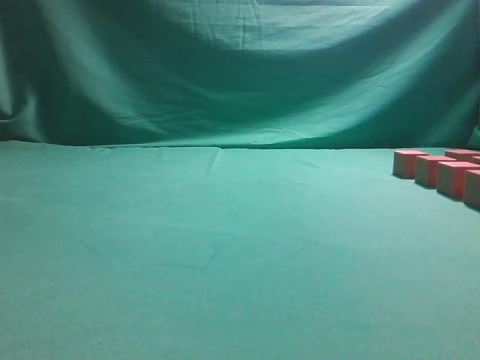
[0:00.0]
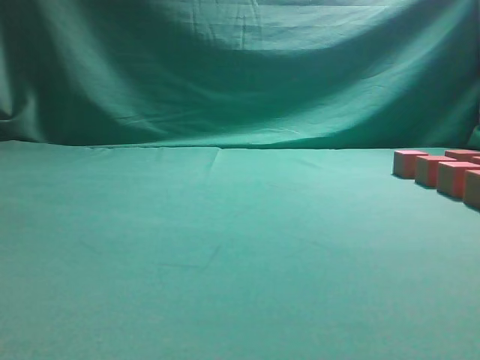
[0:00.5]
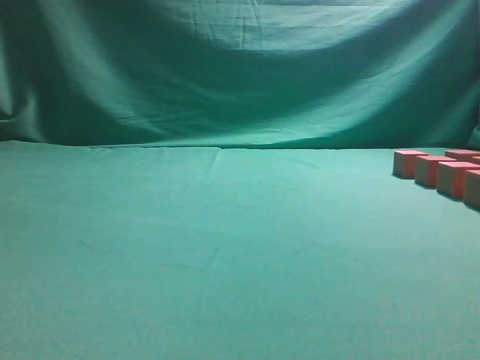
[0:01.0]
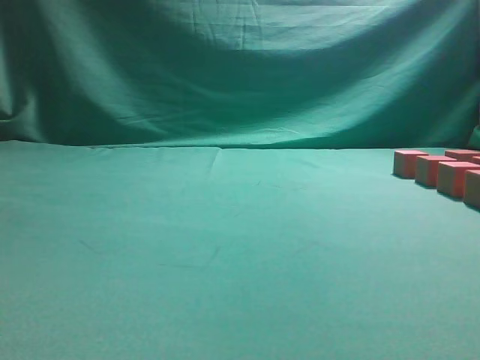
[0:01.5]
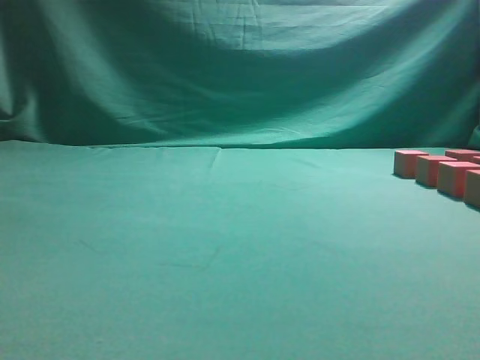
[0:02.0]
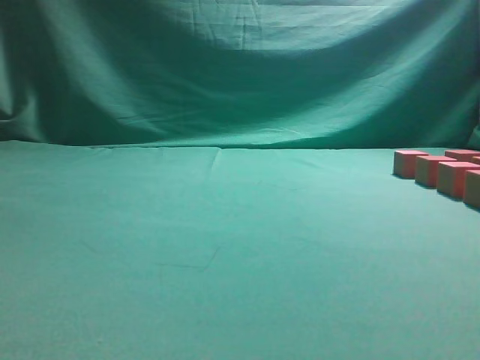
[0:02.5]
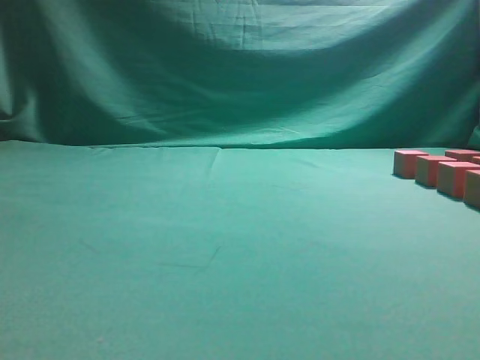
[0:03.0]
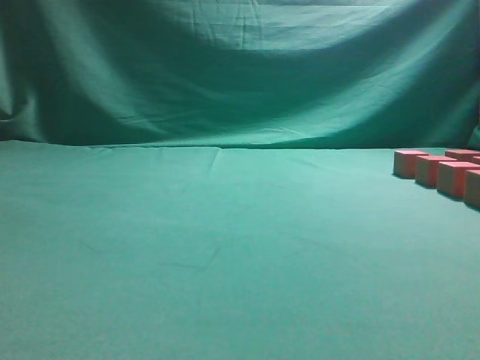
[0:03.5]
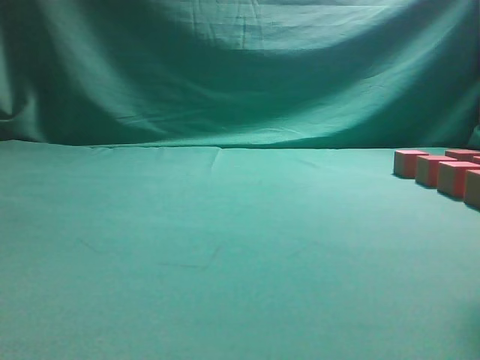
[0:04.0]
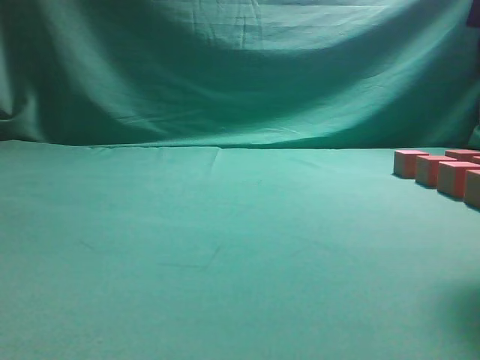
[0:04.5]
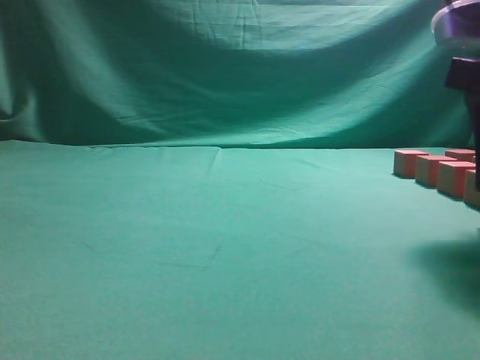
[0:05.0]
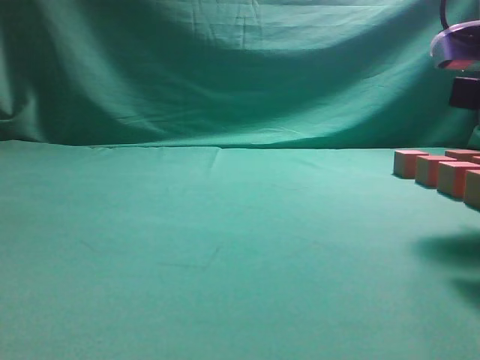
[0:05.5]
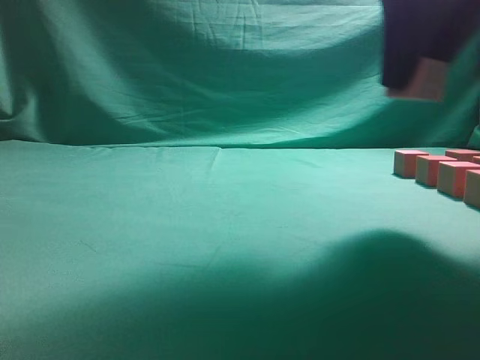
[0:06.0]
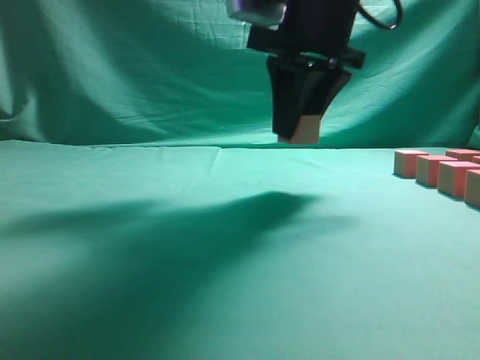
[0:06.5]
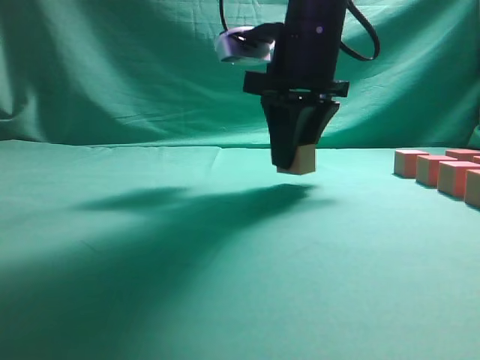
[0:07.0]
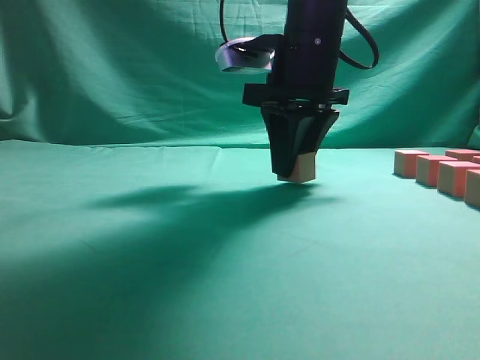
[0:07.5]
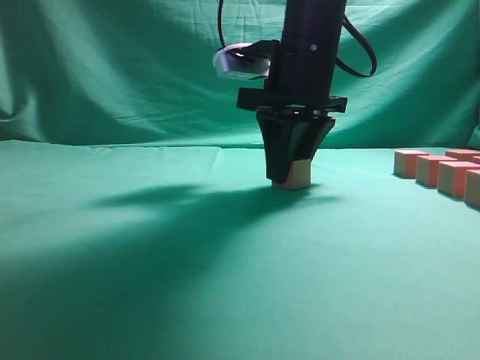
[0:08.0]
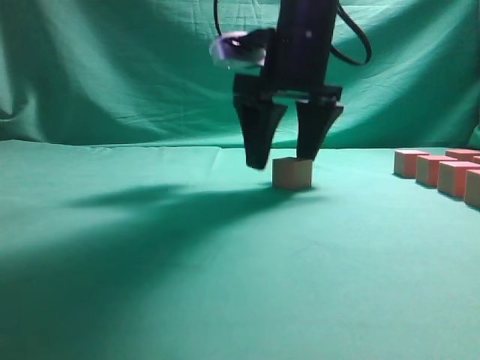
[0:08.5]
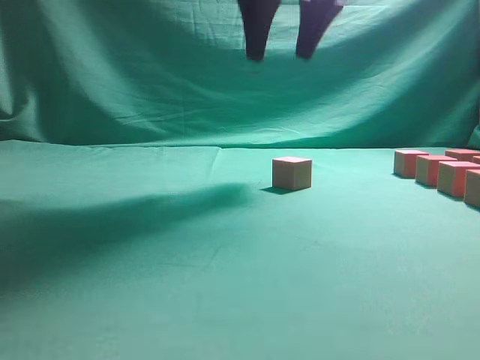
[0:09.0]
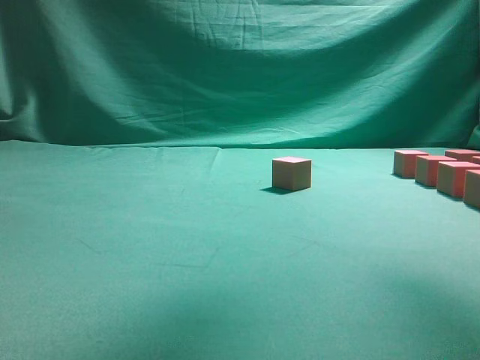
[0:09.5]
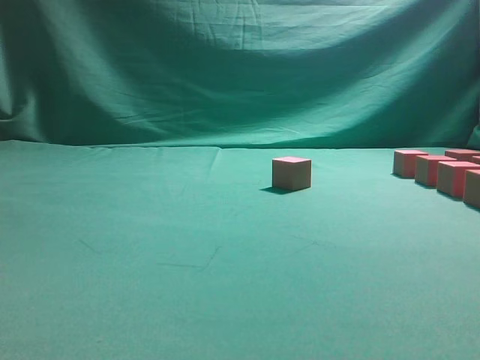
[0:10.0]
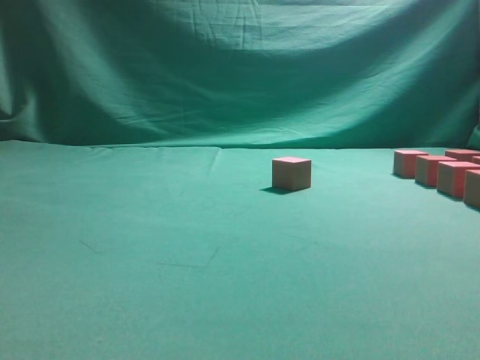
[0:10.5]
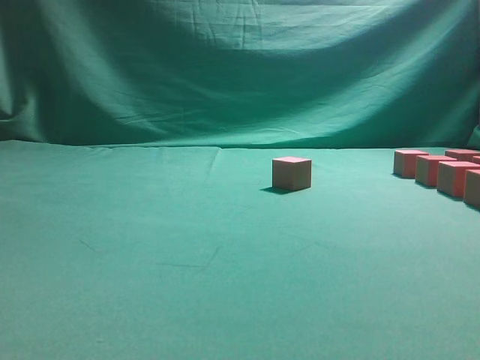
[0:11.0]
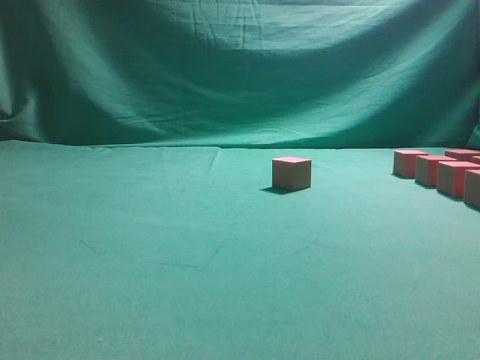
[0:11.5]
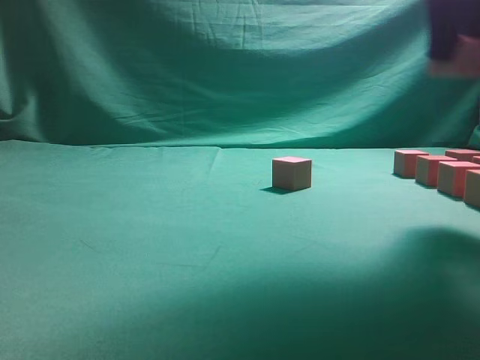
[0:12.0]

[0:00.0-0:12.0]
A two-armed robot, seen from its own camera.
Task of the whole recording: pick up the multiple cubes in two columns one by one and place them in another position on the table.
Step, 0:00.0 to 0:05.5: Pick up the block on the table.
Step, 0:06.0 to 0:08.5: Place the block at the correct position to assemble the letter S.
Step, 0:09.5 to 0:11.5: Pick up the block on the table.
0:04.0 to 0:06.0: The right gripper goes roughly 10 cm to the left and forward, and opens its fingers.
0:06.0 to 0:08.0: The right gripper shifts approximately 15 cm forward, to the left and downward.
0:08.0 to 0:10.0: The right gripper goes roughly 25 cm to the right, backward and upward, and opens up.
0:10.0 to 0:12.0: The right gripper heads to the left, covering approximately 10 cm, goes downward and returns, roughly 10 cm each way, and closes up.

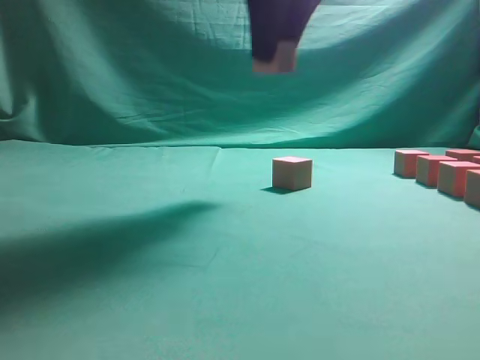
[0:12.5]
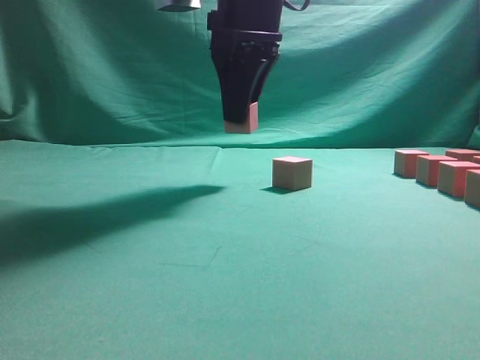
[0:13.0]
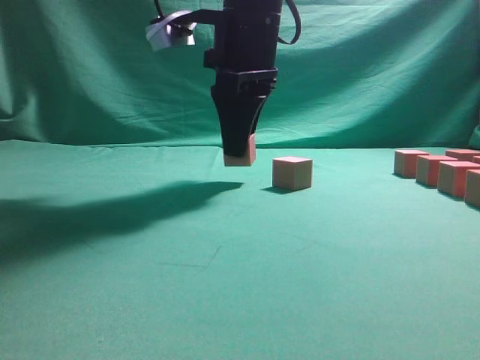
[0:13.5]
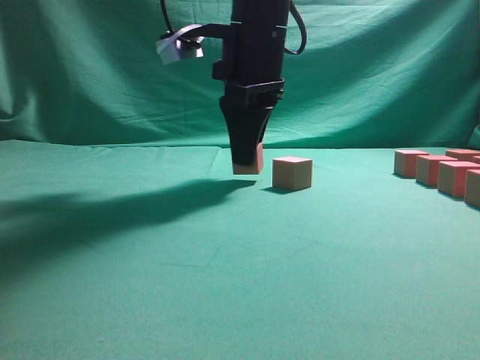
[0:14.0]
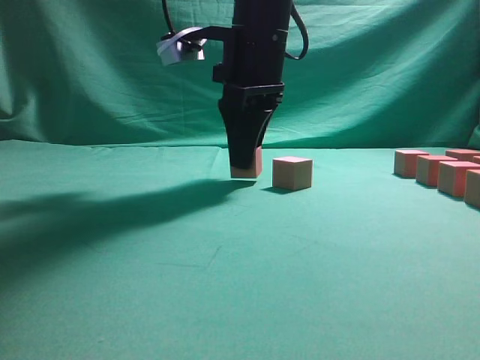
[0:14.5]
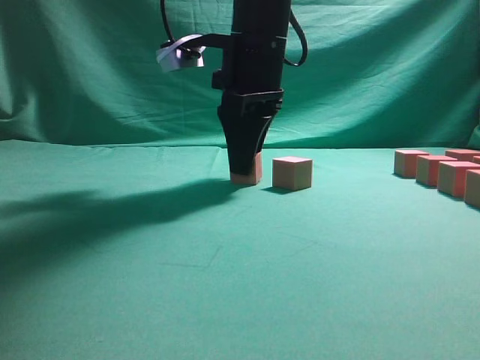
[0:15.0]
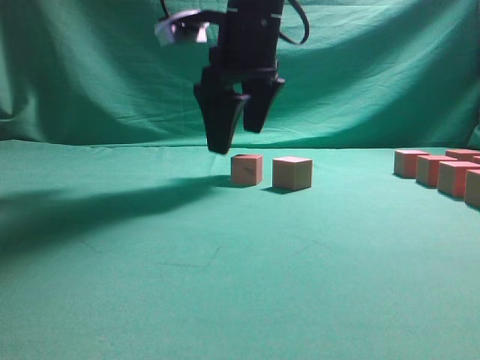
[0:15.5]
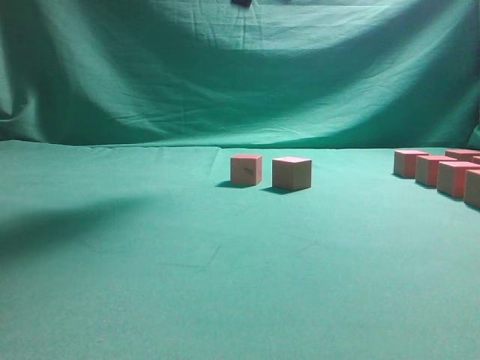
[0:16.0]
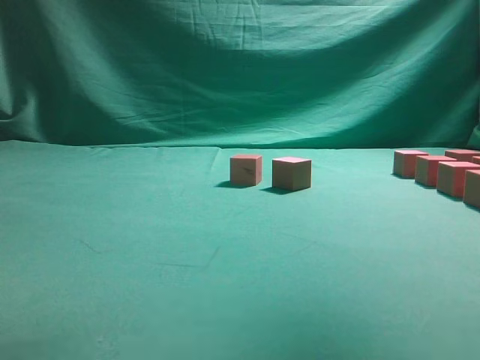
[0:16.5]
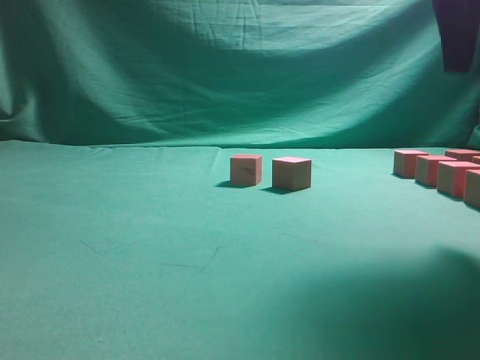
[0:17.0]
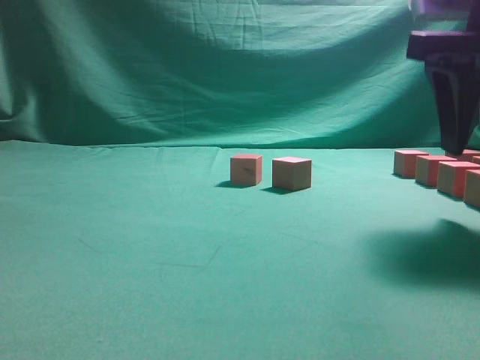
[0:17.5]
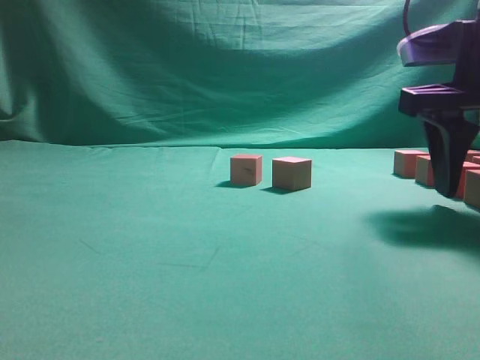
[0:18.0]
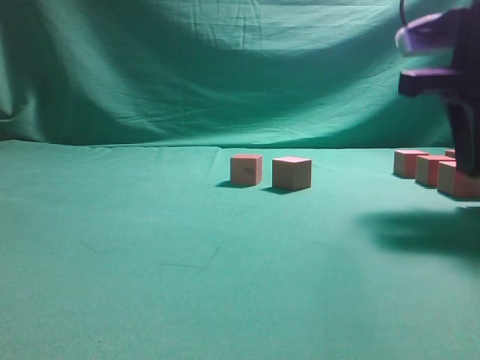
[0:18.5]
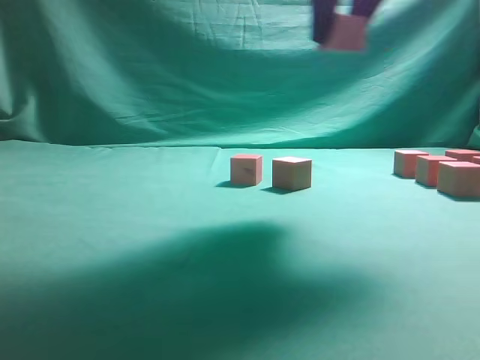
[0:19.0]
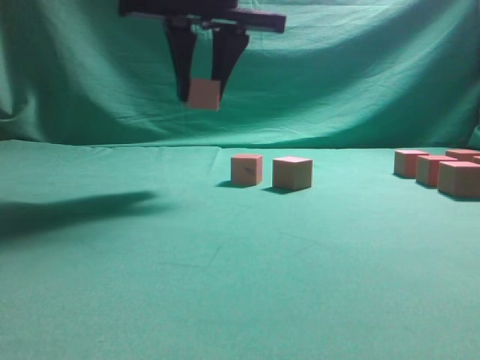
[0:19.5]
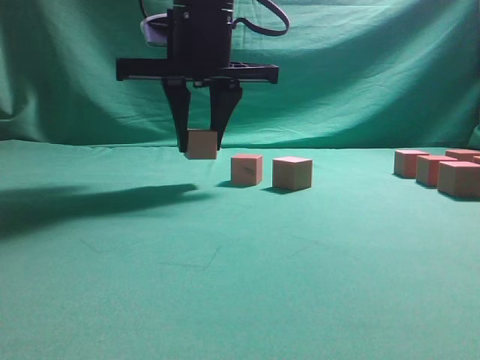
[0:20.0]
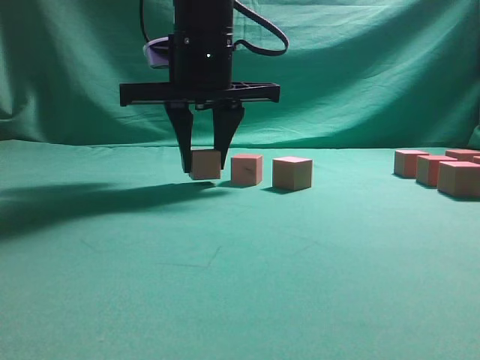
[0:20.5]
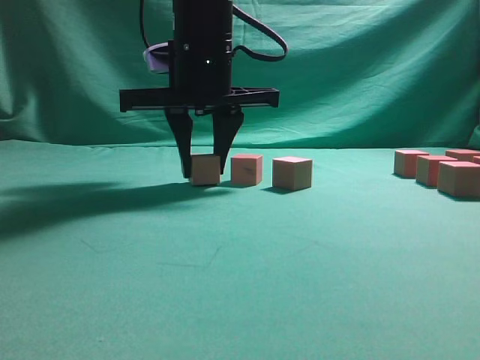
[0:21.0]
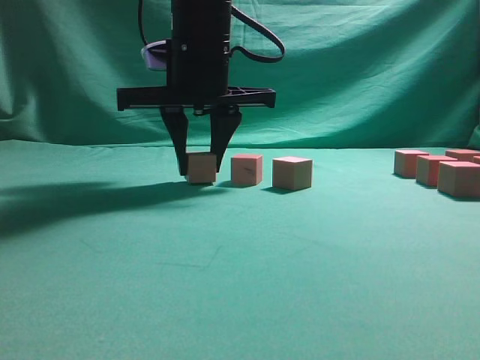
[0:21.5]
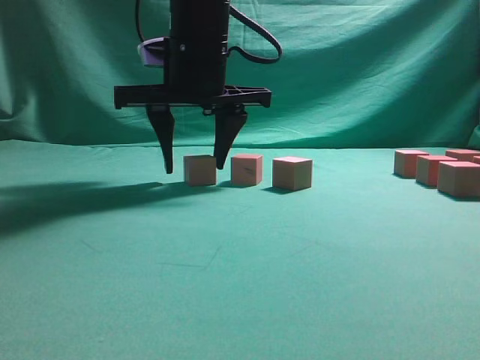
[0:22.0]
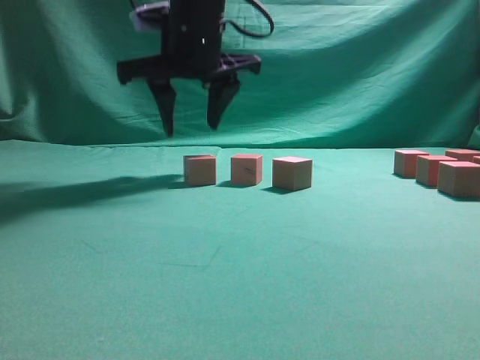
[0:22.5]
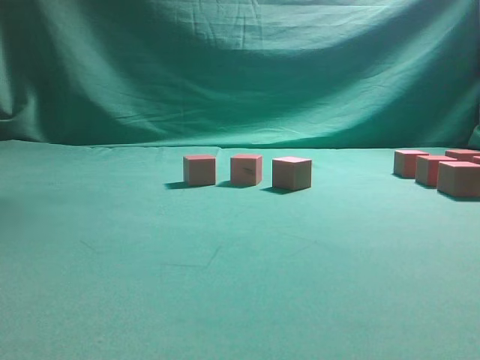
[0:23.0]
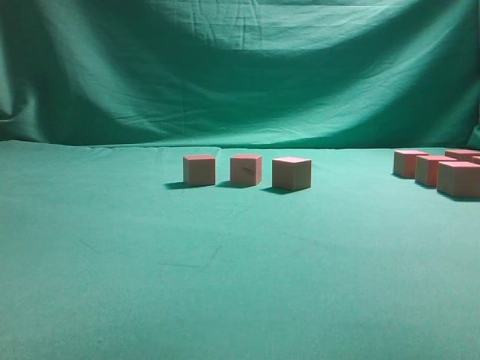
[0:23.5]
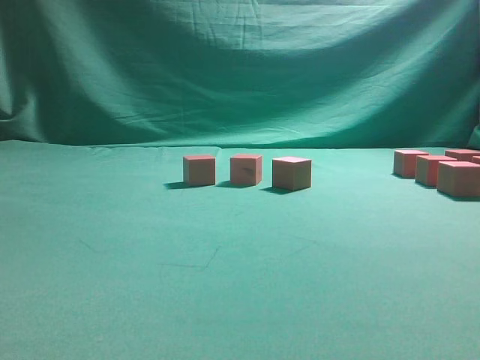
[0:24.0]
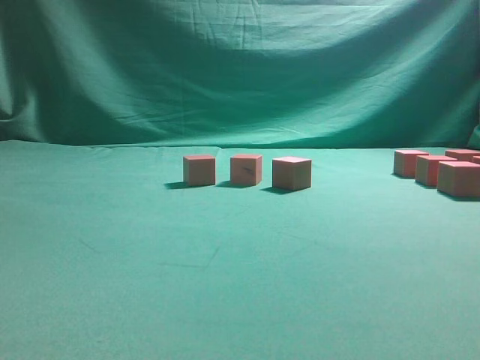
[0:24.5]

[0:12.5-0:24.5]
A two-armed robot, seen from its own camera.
Task of the whole recording: pick up the multiple cubes in two columns one by one and place them in another position on the table.
Step, 0:12.5 to 0:15.5: Place the block at the correct position to assemble the letter S.
Step, 0:16.0 to 0:18.5: Pick up the block on the table.
Step, 0:19.0 to 0:22.5: Place the block at the correct position to assemble the letter S.
0:12.5 to 0:14.5: The right gripper travels downward by some 10 cm.
0:14.5 to 0:16.5: The right gripper goes some 25 cm upward and to the right, and opens up.
0:16.5 to 0:18.5: The right gripper travels downward by some 25 cm, and closes its fingers.
0:18.5 to 0:20.5: The right gripper heads to the left, covering some 25 cm.
0:20.5 to 0:22.5: There are only small adjustments of the grippers.
0:22.5 to 0:24.5: The right gripper goes some 35 cm to the right.

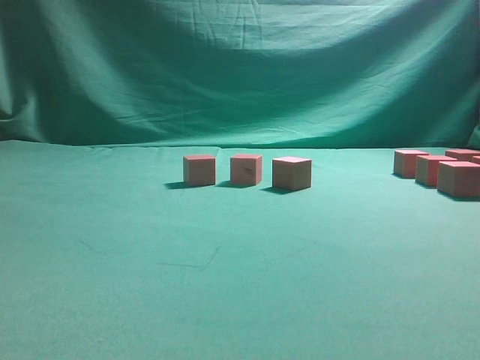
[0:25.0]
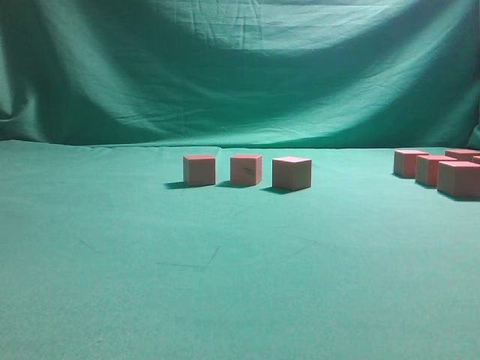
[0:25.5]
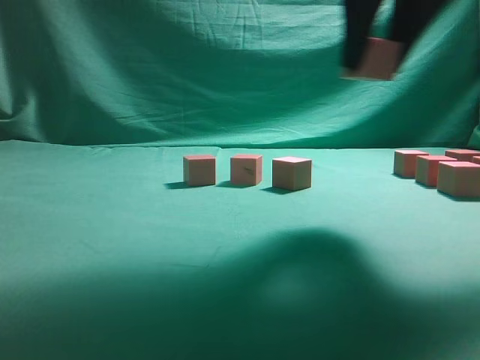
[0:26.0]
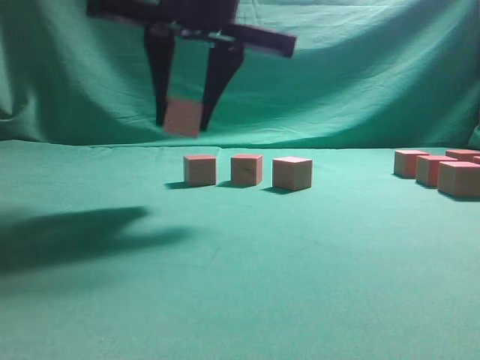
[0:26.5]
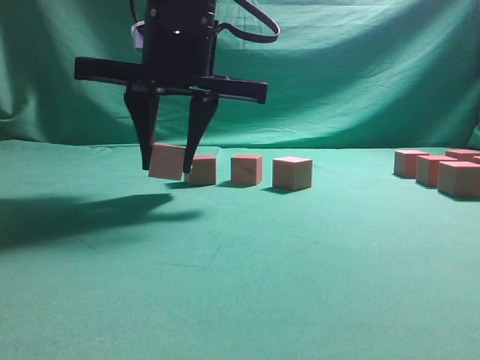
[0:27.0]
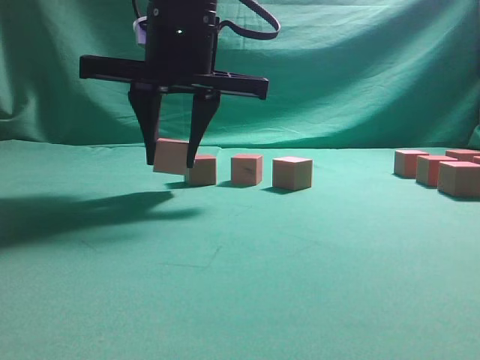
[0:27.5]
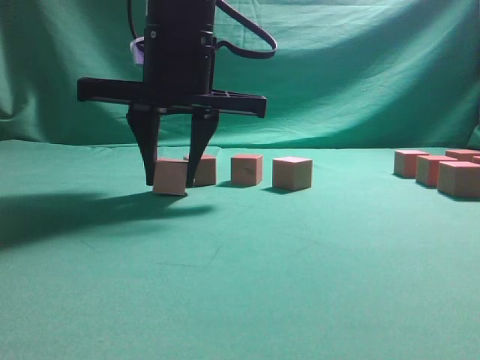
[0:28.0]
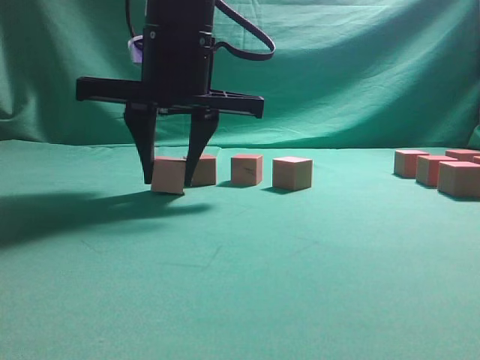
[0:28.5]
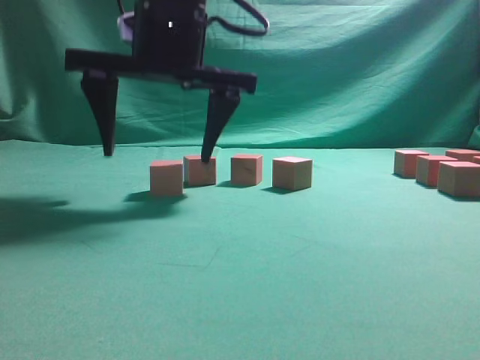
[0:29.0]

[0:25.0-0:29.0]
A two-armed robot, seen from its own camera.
Task of the whole recording: pick up the multiple cubes in two columns one by one and place them in another position on the table.
0:25.0 to 0:27.0: The right gripper travels to the left by roughly 30 cm.
0:27.0 to 0:29.0: The right gripper opens up.
